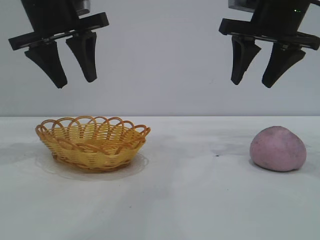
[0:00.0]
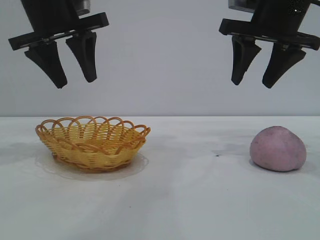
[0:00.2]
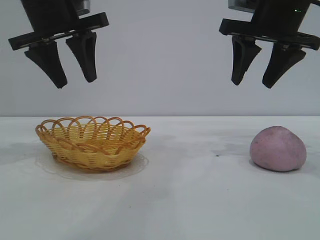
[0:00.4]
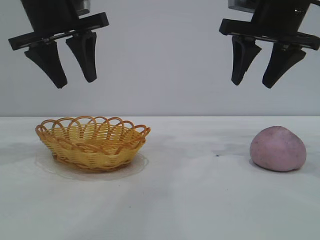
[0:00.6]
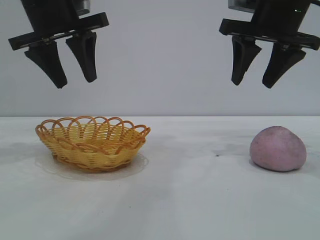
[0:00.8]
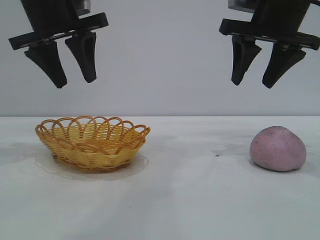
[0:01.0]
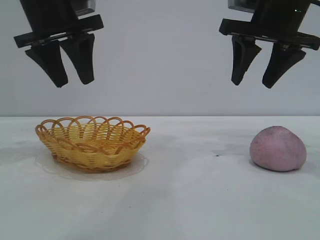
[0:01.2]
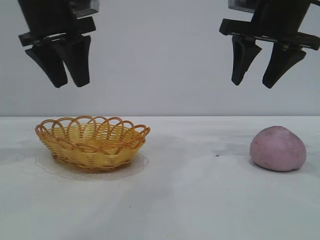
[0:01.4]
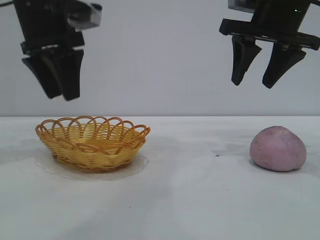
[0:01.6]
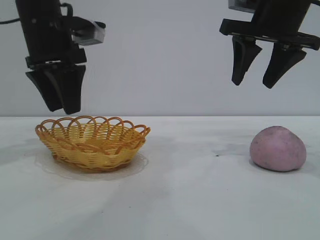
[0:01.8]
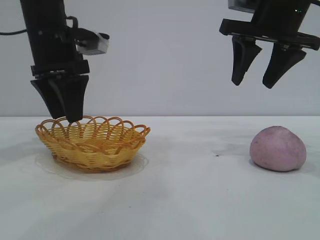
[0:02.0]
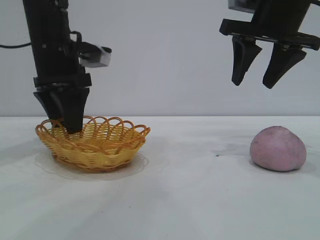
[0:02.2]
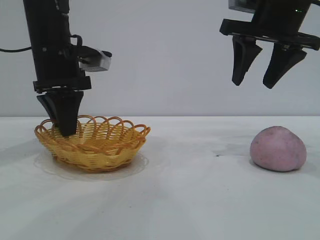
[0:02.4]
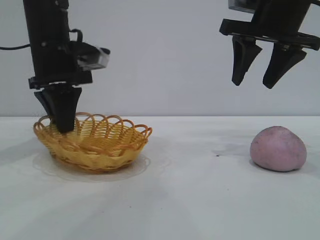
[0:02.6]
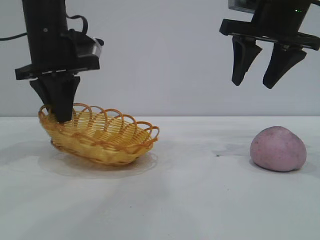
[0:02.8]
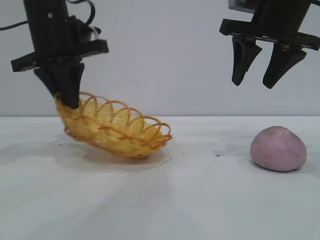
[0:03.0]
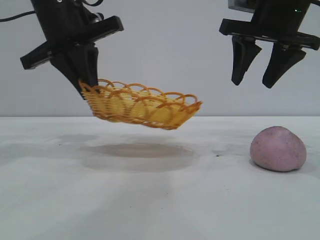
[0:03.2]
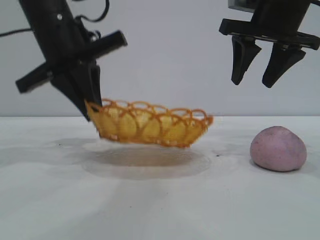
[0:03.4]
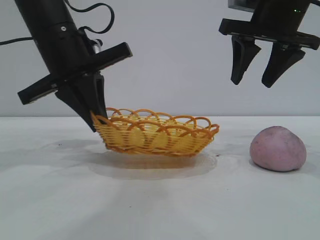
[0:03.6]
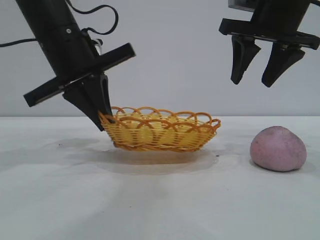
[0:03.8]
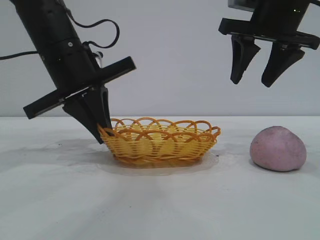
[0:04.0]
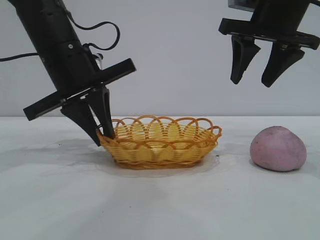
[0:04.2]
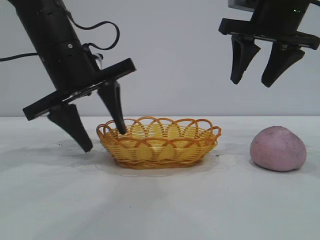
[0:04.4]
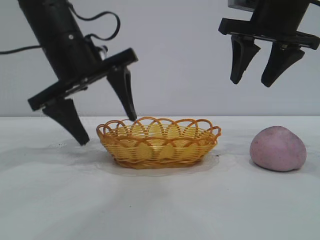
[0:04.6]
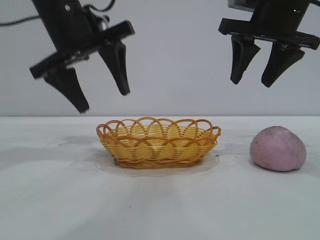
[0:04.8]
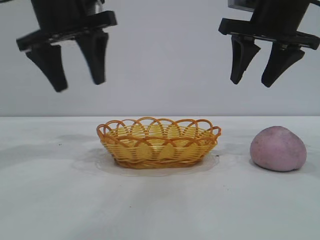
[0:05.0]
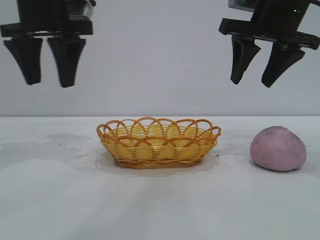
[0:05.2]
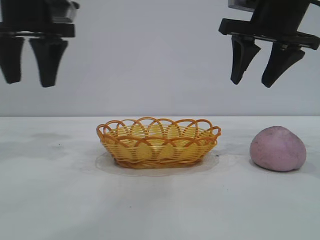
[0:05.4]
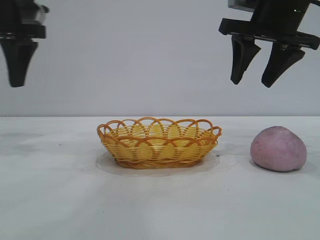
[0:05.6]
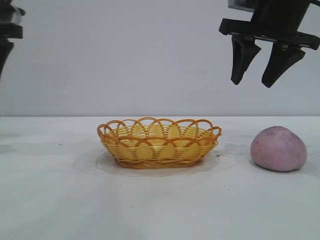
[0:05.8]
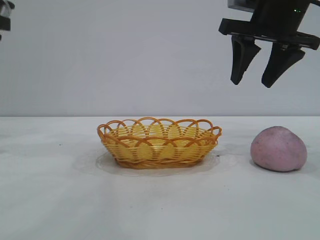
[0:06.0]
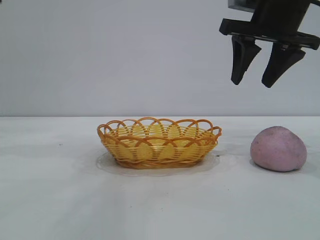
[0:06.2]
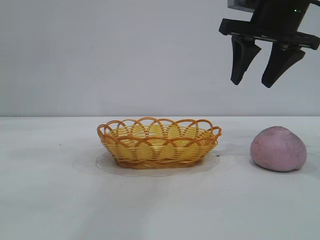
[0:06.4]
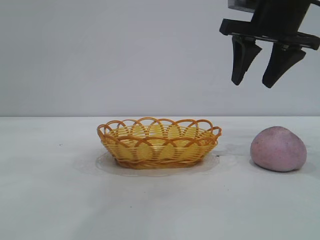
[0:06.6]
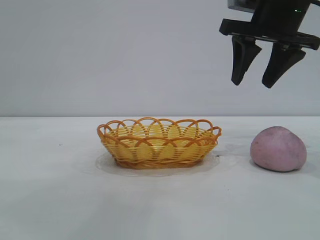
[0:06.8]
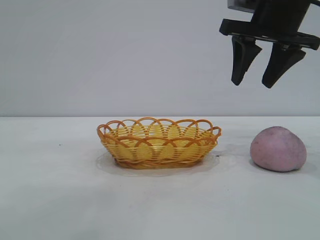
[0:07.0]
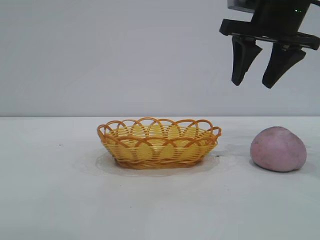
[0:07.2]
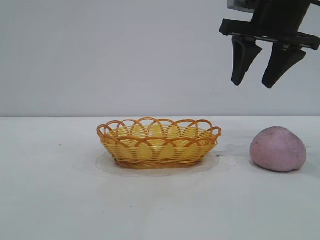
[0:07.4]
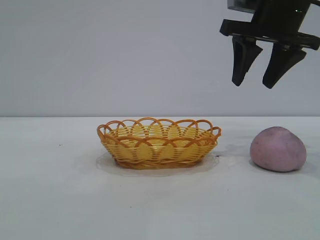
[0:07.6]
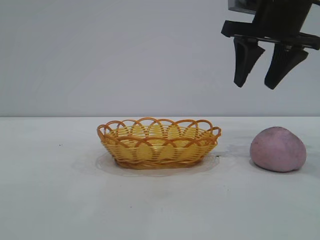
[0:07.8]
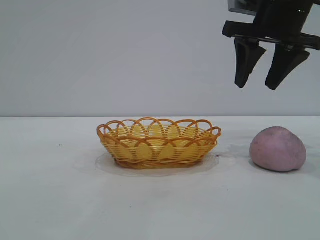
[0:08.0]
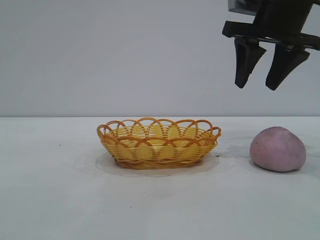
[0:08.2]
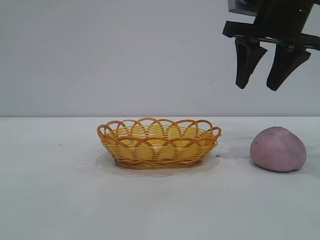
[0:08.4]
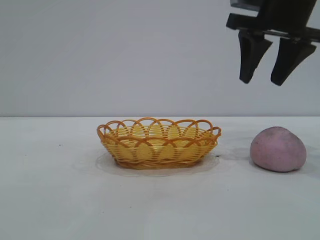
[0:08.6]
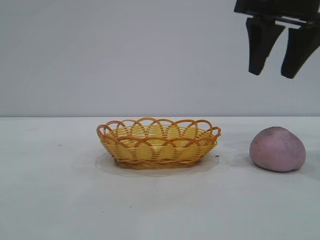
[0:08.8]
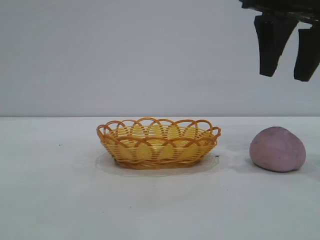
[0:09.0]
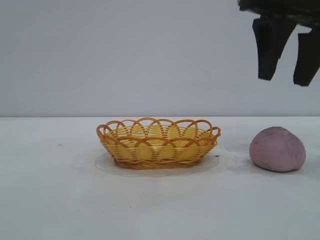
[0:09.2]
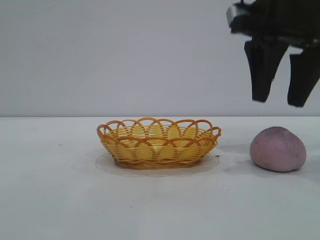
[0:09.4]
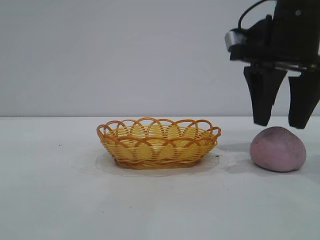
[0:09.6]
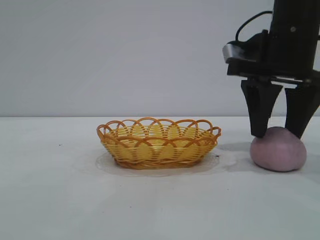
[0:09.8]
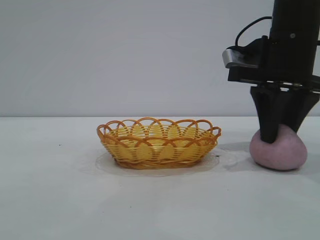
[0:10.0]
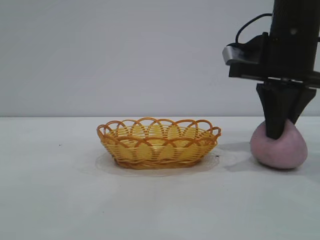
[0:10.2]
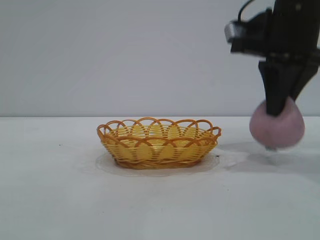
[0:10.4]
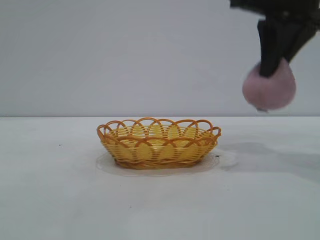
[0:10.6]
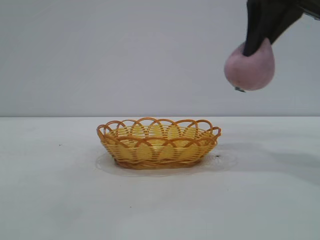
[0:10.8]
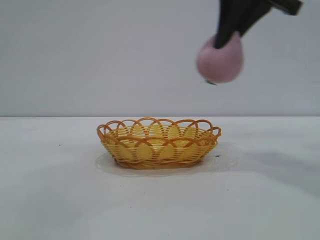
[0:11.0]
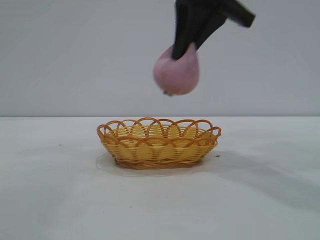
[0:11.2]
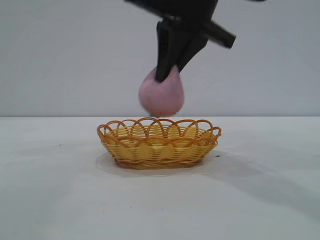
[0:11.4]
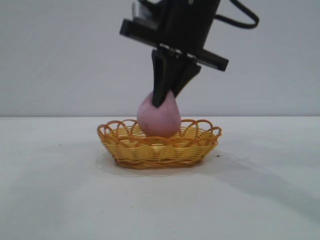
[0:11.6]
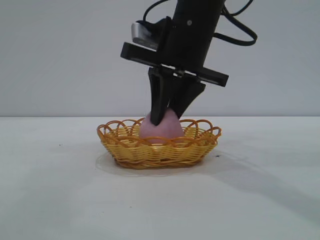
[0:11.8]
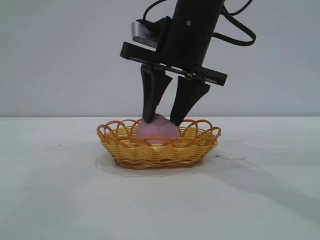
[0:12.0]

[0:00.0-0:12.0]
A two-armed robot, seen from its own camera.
Task of the whole recording: pick up the peach and put it into the basket.
Step, 0:00.0 to 0:05.2: Move the basket to the center of view.
Step, 0:05.4 to 0:10.4: Pick up the peach.

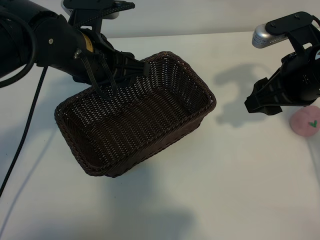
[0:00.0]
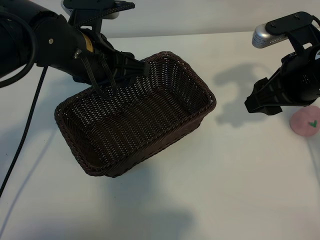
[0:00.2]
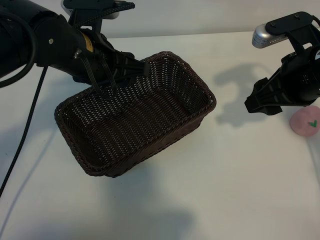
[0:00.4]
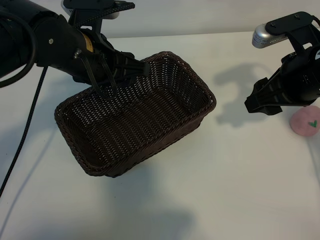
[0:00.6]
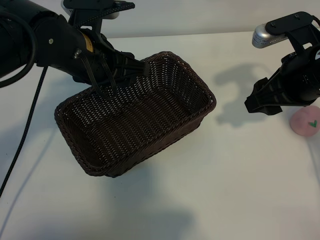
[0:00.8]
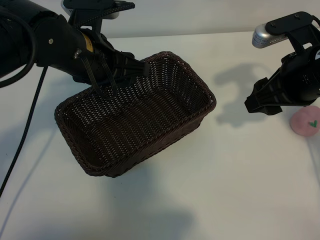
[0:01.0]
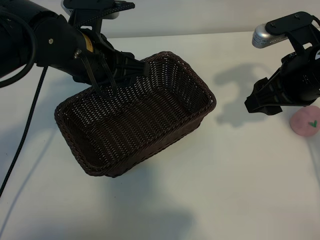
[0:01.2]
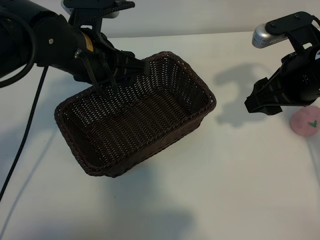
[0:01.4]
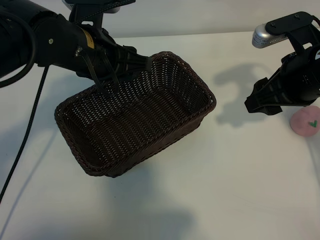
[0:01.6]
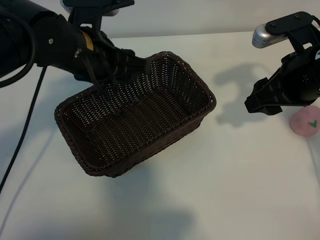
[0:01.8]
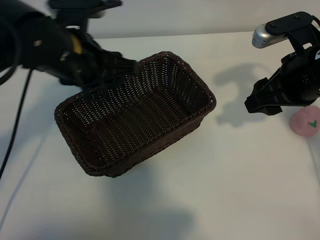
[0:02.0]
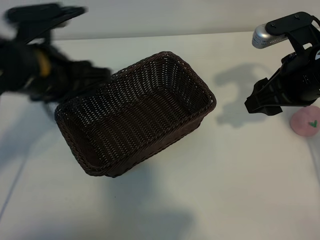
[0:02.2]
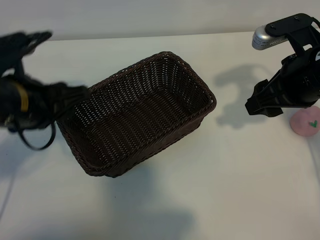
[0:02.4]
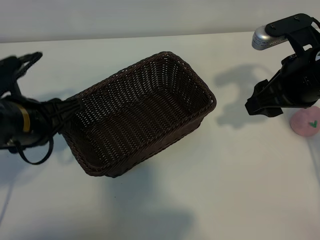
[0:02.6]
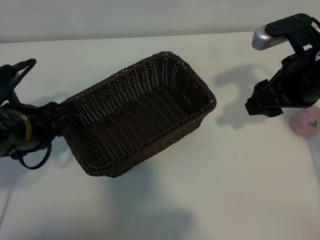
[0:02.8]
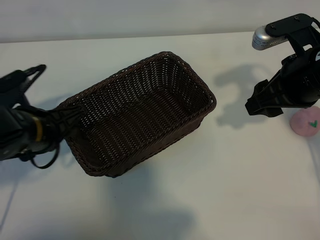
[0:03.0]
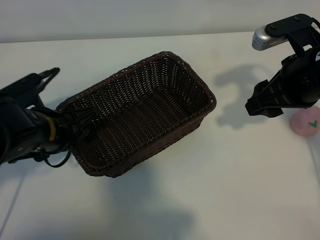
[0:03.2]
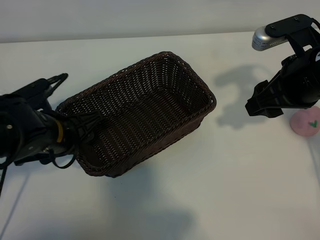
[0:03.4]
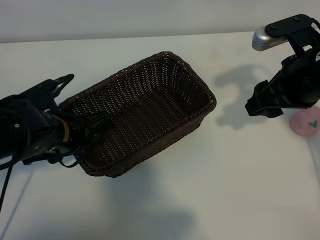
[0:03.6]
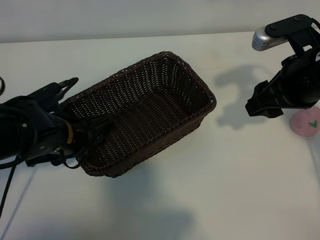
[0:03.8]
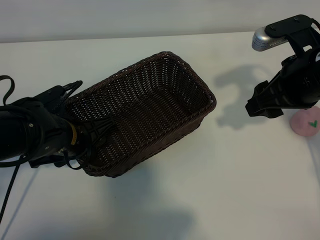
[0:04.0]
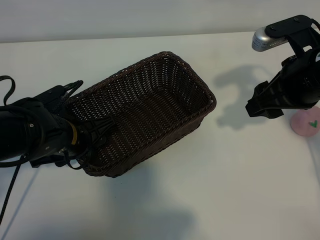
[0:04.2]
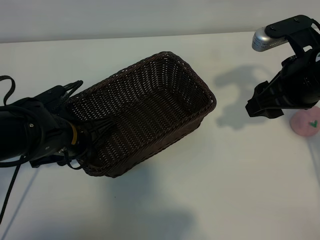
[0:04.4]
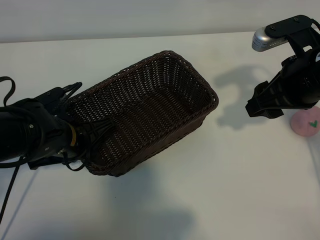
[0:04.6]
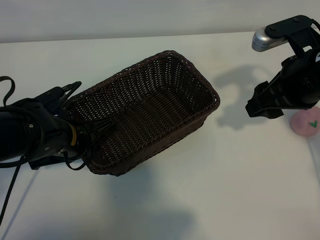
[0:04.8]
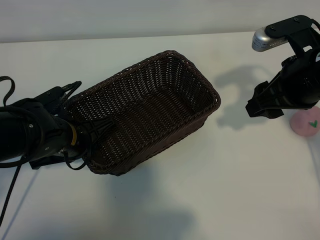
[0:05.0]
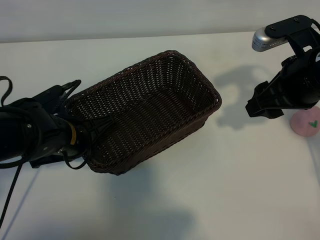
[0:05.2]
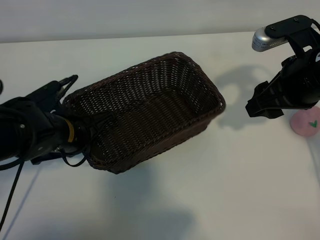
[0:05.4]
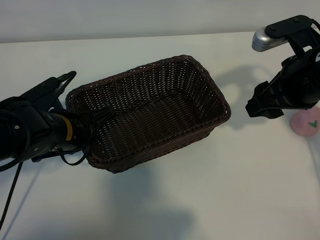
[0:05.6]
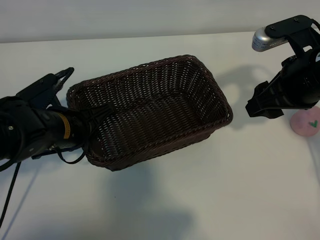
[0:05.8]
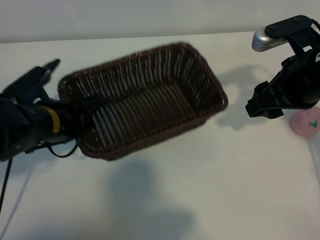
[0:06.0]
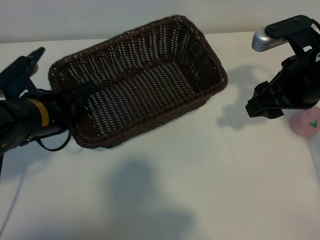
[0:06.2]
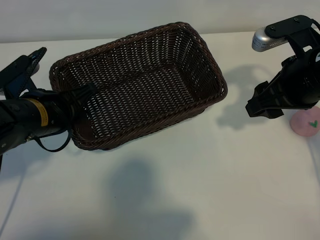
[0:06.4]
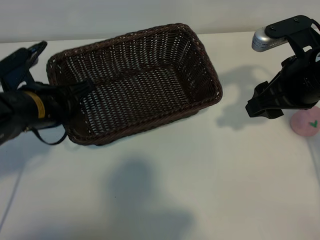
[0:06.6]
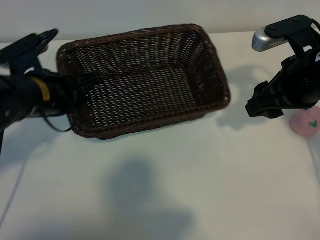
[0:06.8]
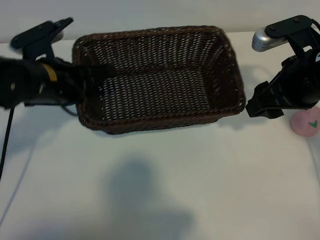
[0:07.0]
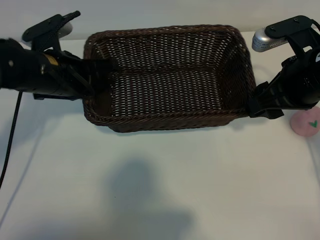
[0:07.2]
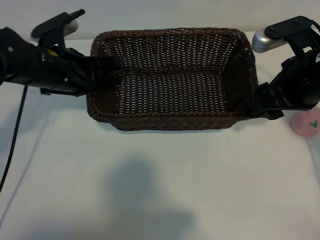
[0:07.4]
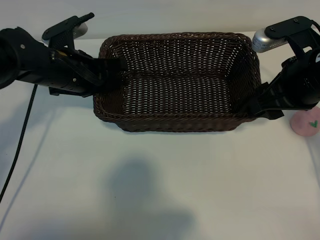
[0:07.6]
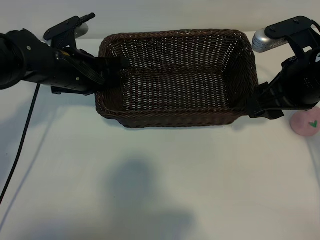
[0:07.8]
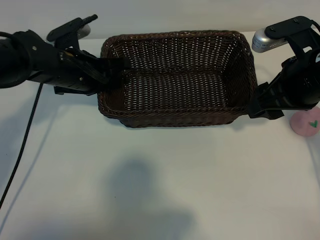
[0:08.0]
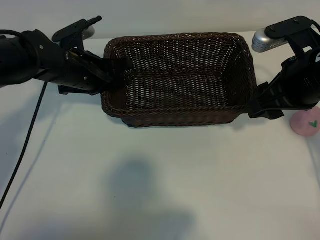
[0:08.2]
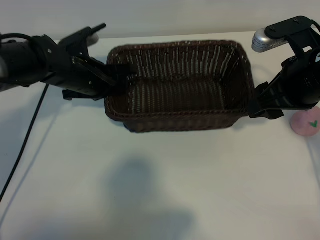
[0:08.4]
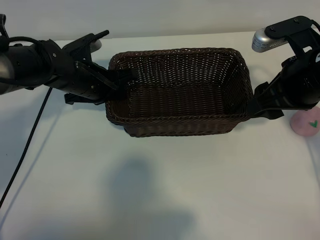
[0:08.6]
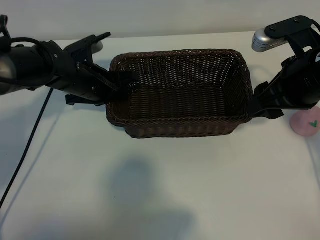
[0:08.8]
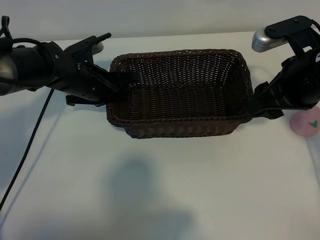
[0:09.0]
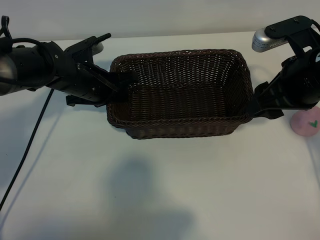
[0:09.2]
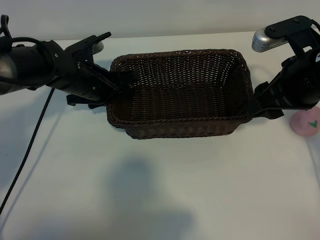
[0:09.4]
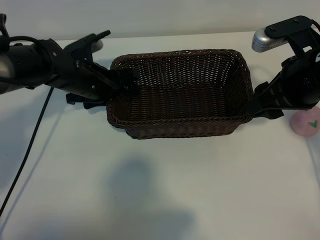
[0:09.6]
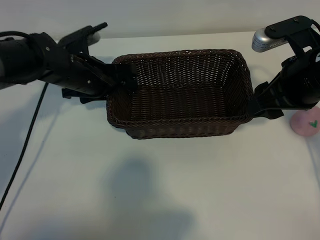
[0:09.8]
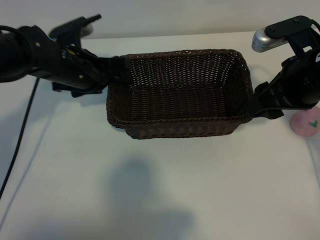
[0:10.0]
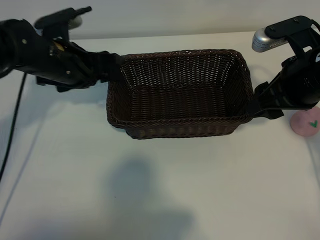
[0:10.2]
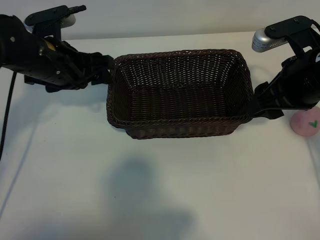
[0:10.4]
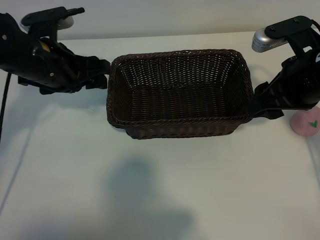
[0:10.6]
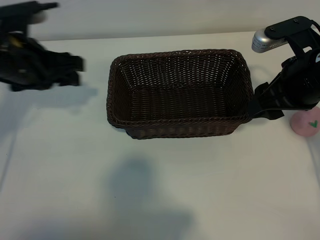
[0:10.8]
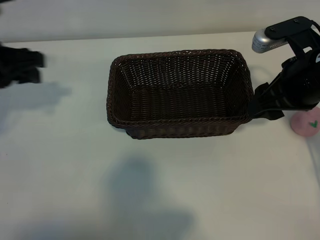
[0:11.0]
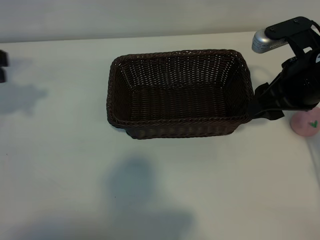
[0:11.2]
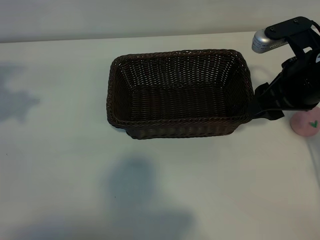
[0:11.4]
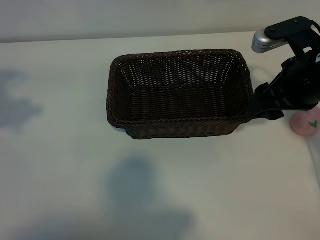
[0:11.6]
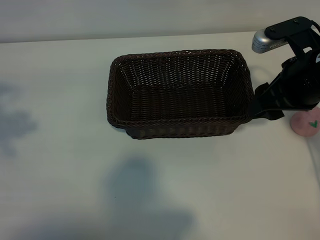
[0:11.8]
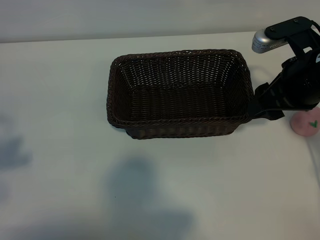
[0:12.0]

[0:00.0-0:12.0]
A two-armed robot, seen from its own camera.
Task of the whole recording: pick up the peach and put it into the basket.
Step, 0:01.4 to 0:04.8: Grasp the basket with left gripper.
Step, 0:05.2 to 0:09.8: Place the basket in the center of view with left gripper.
